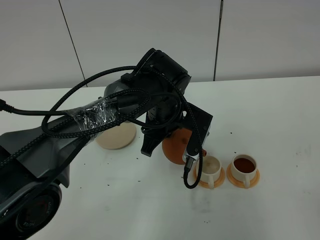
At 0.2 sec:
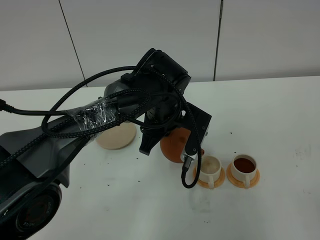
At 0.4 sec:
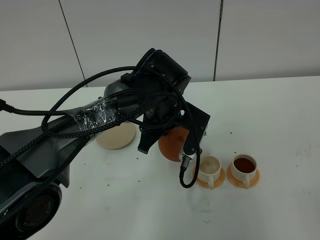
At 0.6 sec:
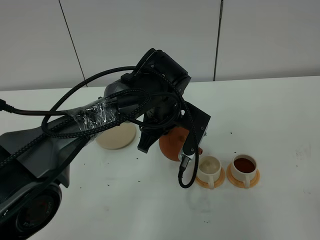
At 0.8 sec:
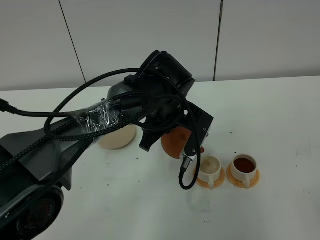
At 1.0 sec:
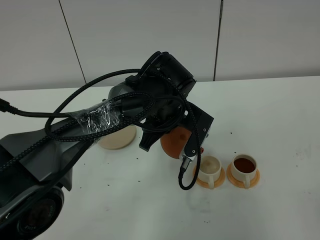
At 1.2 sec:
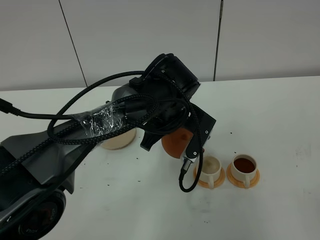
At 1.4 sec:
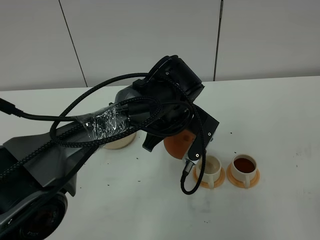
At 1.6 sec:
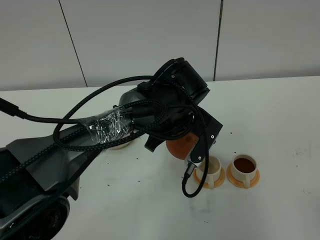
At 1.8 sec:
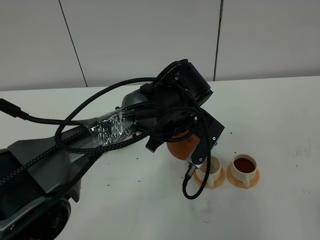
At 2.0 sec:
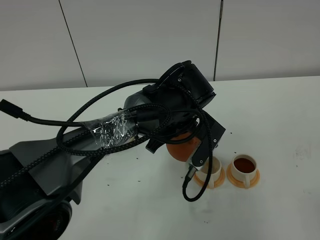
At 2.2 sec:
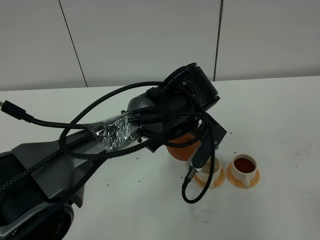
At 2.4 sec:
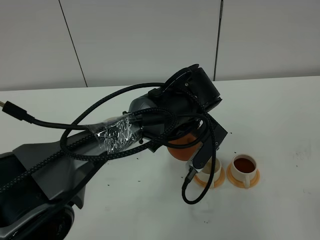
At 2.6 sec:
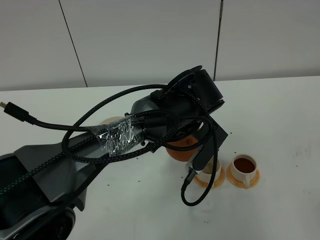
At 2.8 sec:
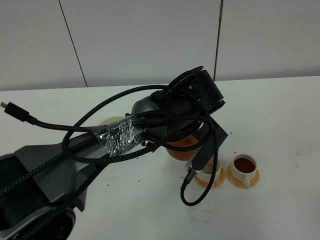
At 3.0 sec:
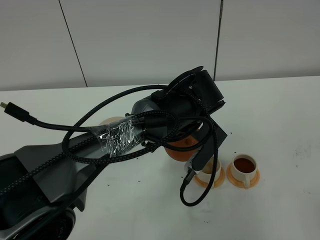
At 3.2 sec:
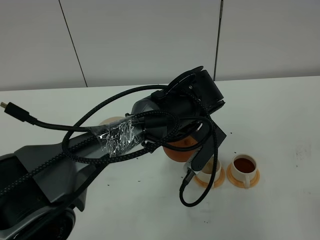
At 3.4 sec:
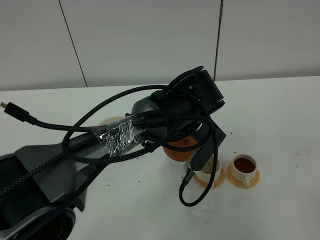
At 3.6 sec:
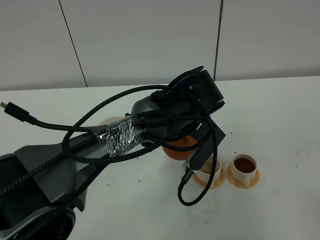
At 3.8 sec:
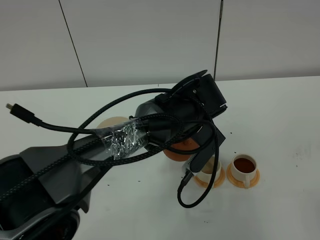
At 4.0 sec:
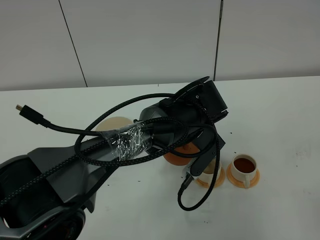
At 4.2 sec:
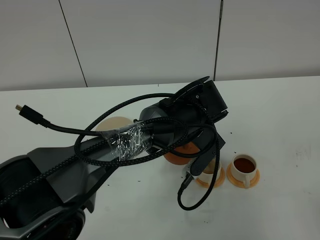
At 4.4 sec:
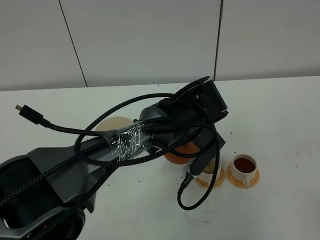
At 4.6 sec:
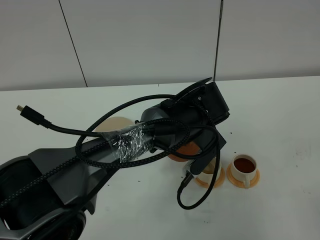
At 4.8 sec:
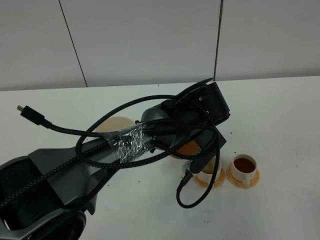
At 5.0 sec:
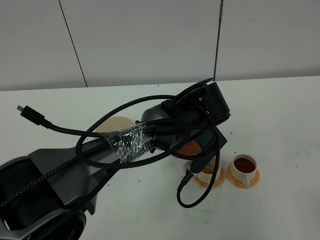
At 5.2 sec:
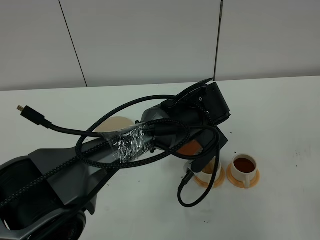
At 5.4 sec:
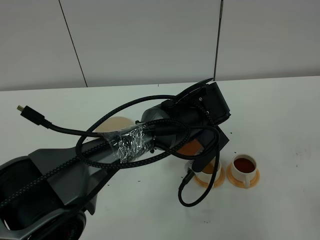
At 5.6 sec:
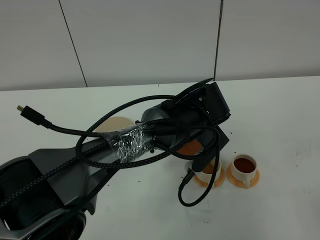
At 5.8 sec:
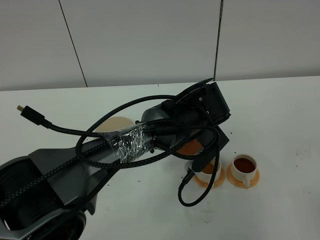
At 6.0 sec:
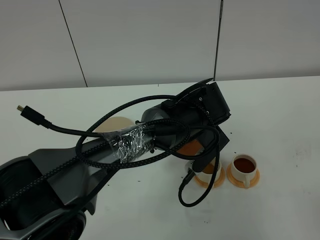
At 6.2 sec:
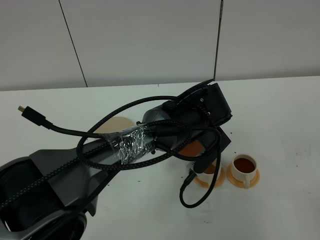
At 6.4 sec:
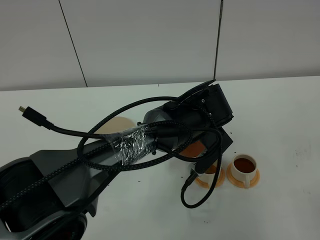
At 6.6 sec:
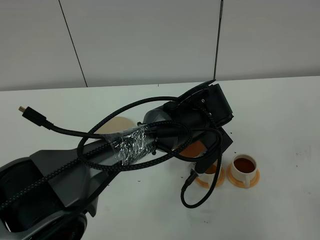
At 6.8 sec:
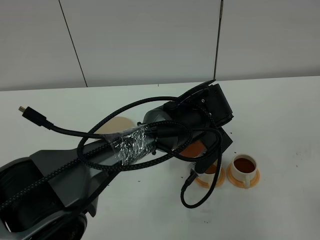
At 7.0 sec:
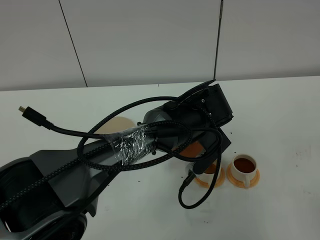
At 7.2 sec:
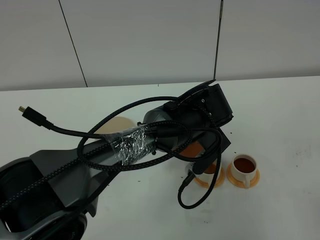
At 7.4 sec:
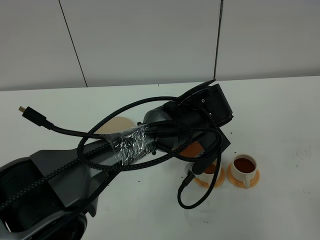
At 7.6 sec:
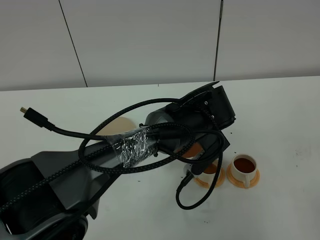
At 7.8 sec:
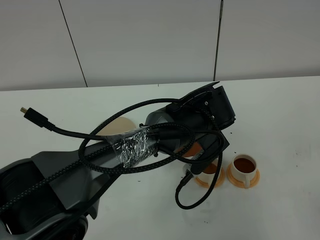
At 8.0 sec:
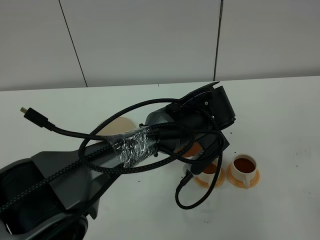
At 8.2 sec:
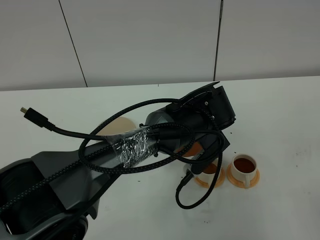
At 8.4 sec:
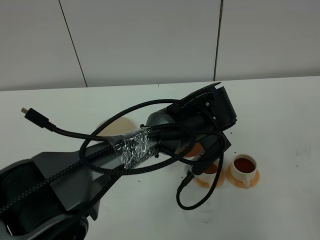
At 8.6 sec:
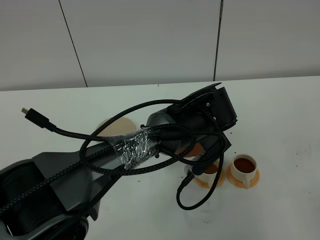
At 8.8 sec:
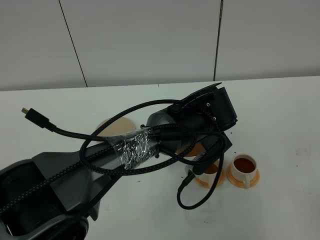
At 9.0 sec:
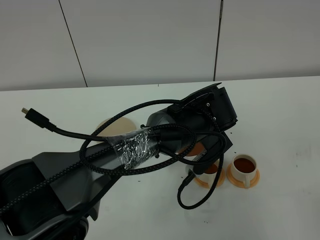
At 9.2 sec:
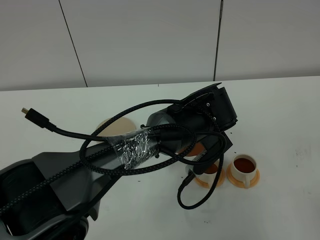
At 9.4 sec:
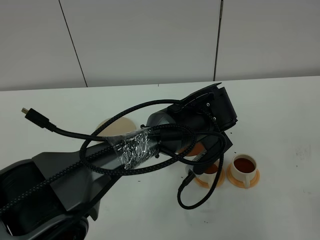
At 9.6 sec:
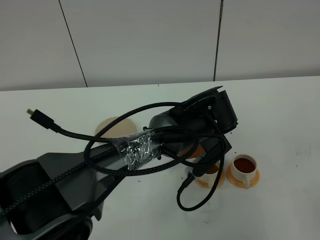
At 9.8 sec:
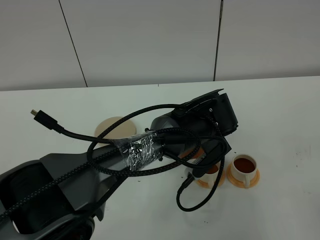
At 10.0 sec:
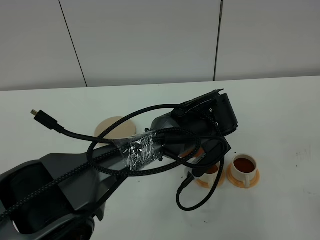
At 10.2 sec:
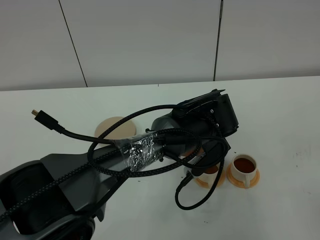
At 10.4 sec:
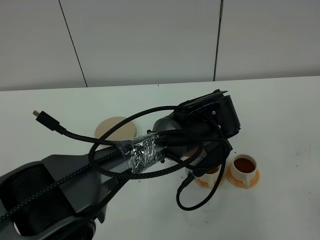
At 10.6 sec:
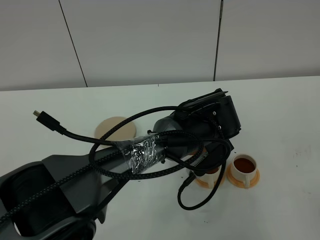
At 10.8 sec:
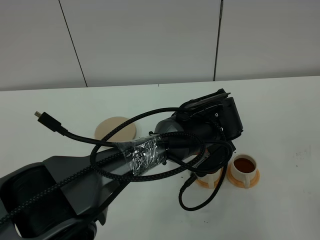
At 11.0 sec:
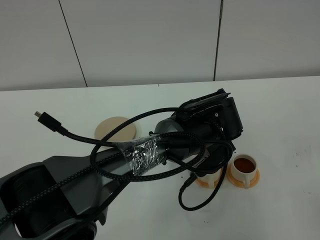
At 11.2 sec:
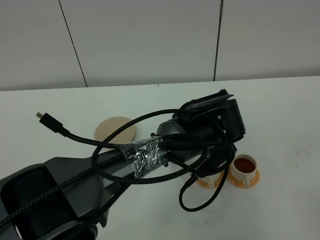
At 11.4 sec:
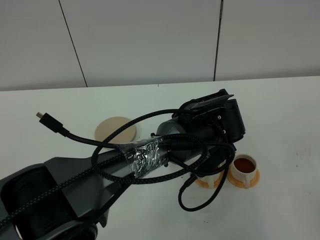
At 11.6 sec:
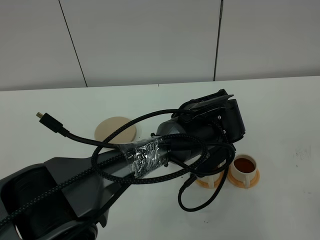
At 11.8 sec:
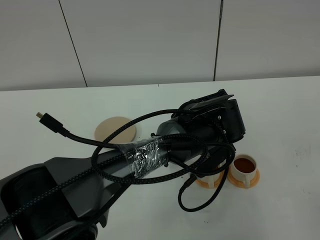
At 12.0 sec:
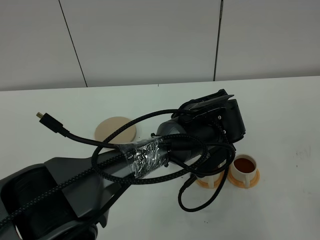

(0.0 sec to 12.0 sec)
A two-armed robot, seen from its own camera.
Task of the whole recording: grasp the brown teapot and pour the tea into the two white teacups one by one, put the brown teapot back in its original place.
0.0 sec - 1.6 sec: The grippers stay close to where they were, moving slightly.
1.6 sec - 6.0 sec: The grippers stay close to where they were, moving slightly.
6.0 sec - 9.0 sec: The two grippers keep their place.
9.0 sec - 10.4 sec: The two grippers keep their place.
10.4 sec - 12.0 sec: Both grippers stay about where they are.

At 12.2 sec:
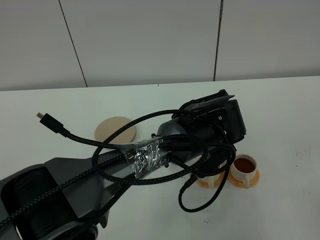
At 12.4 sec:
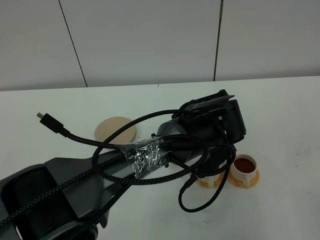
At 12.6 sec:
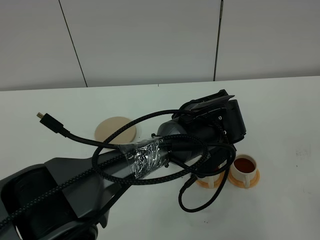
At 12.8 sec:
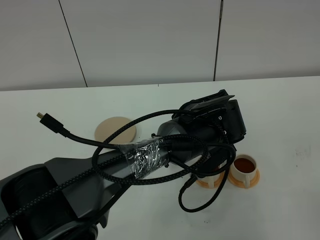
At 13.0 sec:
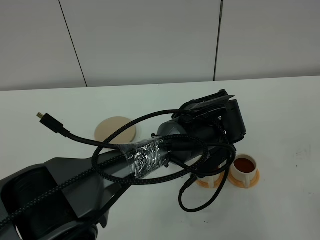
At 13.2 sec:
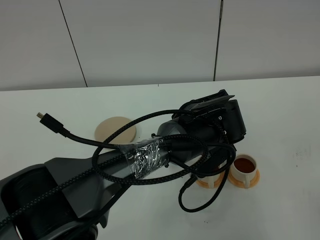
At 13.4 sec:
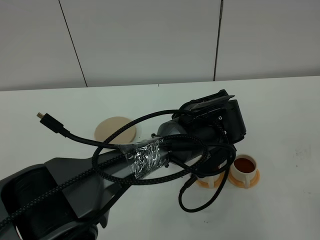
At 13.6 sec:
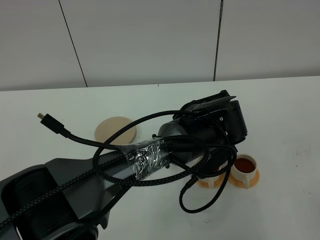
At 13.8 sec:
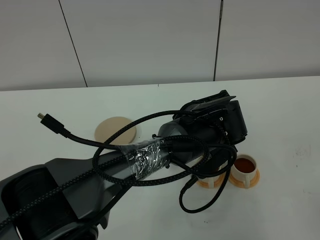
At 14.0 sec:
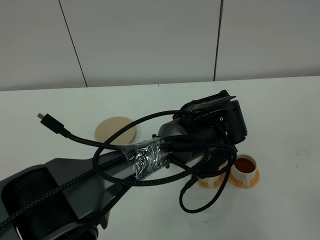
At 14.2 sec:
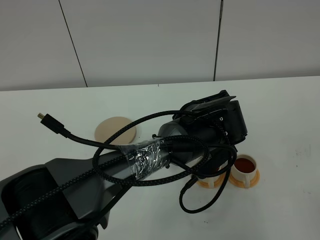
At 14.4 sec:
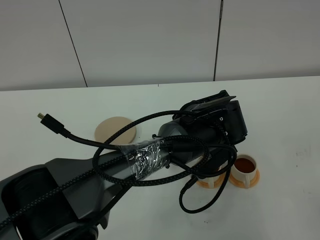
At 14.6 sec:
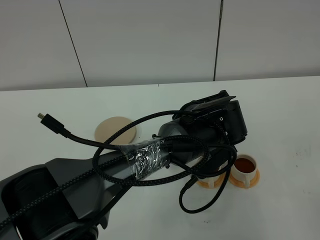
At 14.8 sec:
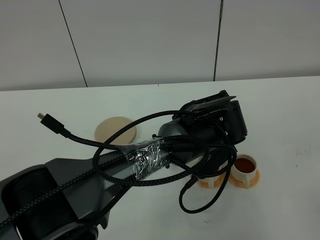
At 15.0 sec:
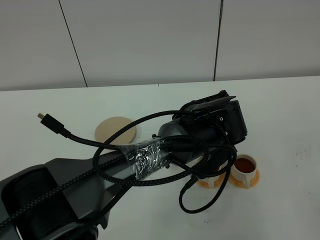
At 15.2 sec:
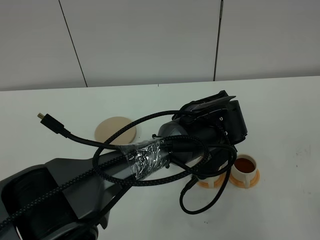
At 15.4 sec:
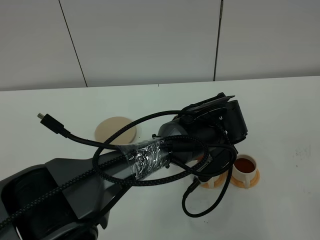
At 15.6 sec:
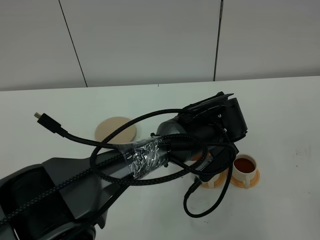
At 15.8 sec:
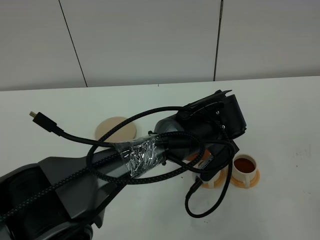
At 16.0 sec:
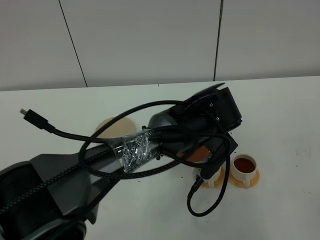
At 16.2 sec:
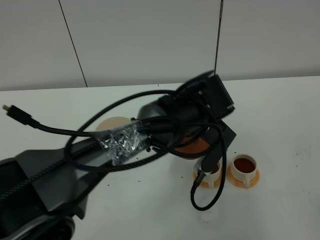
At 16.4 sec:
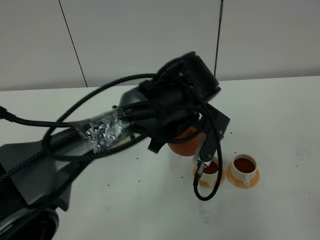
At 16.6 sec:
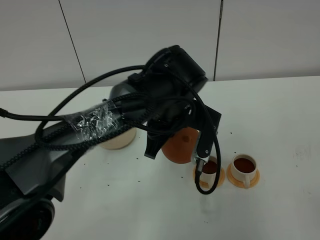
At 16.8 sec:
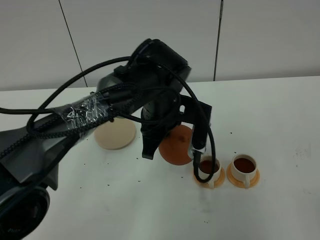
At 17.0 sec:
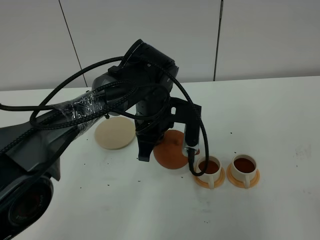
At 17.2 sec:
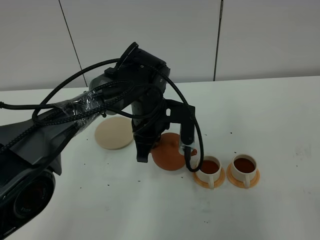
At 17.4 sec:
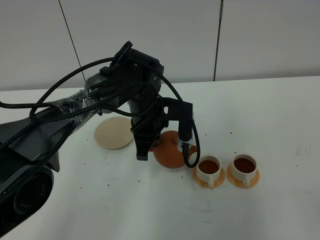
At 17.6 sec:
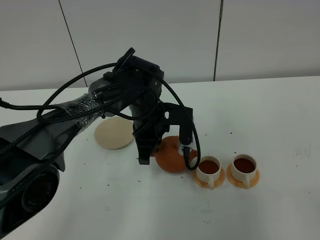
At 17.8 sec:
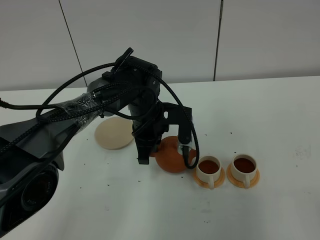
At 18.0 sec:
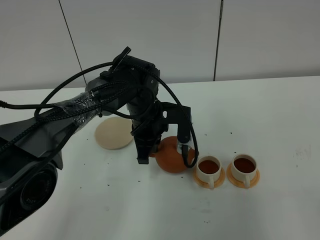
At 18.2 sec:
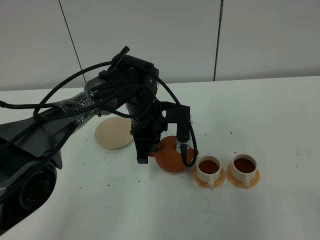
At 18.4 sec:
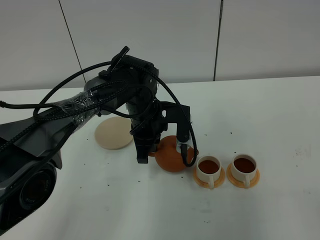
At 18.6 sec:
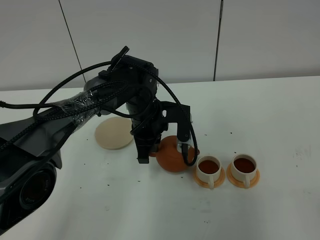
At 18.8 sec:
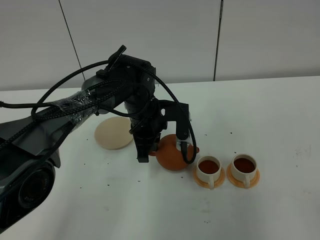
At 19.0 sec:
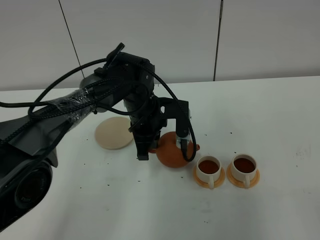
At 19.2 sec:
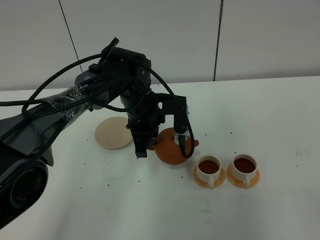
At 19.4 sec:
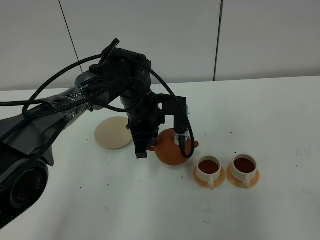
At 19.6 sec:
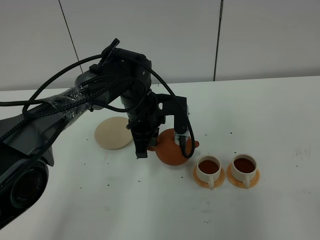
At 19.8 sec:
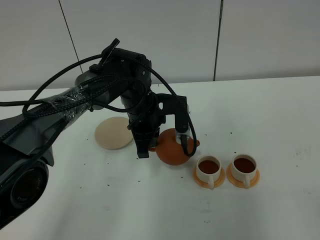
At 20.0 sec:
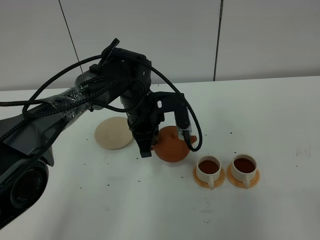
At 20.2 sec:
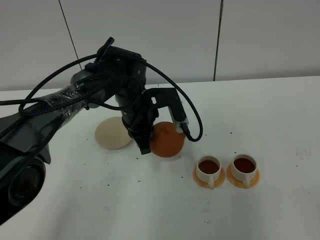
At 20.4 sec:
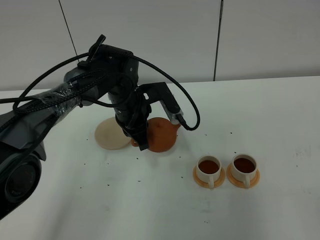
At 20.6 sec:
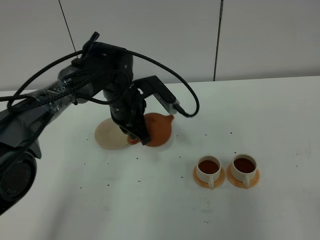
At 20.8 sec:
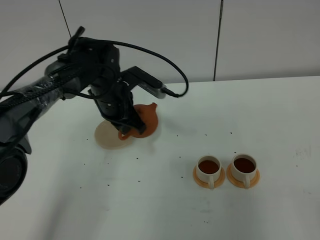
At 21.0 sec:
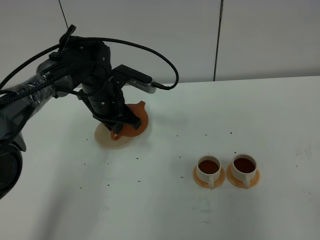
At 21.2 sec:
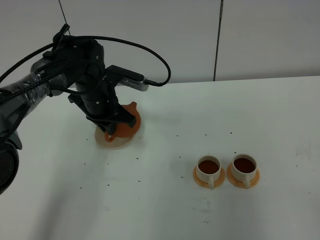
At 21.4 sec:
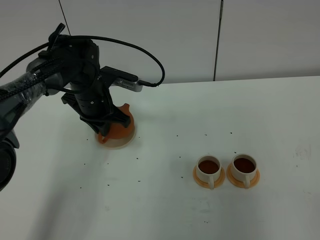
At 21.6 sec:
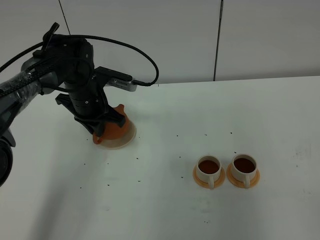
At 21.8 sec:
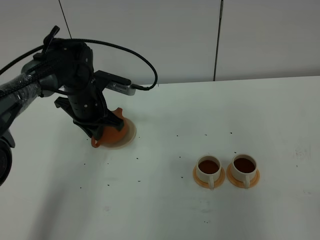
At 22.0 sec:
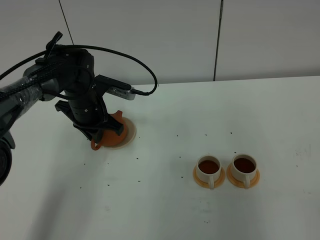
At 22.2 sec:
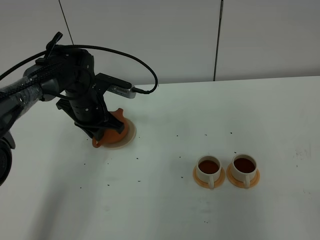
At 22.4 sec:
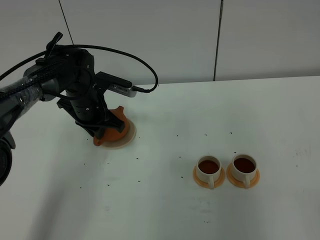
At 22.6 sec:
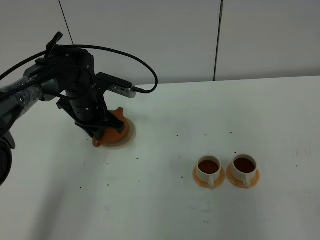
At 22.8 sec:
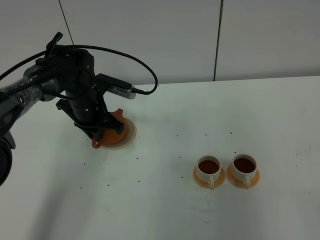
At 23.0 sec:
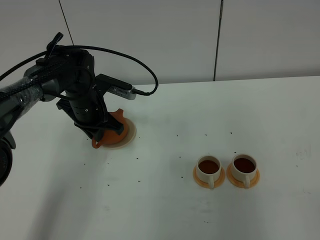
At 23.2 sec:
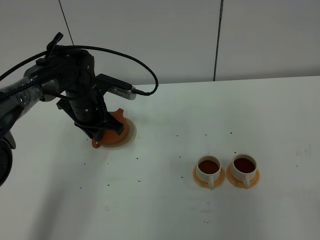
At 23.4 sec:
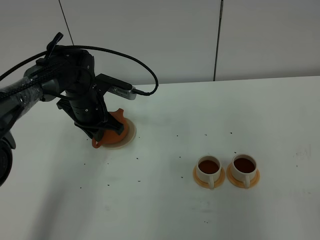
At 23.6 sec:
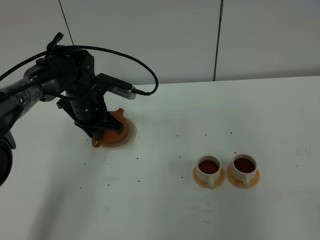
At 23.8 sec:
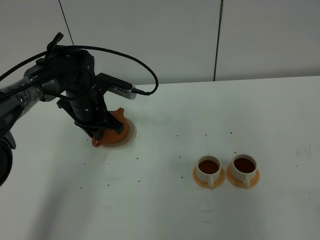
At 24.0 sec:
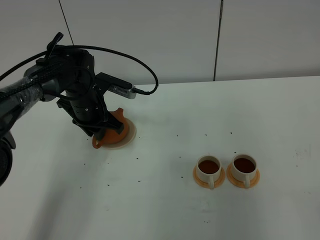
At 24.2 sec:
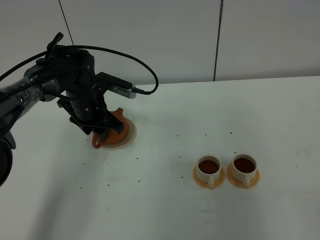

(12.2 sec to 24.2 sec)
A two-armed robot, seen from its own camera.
Task of the whole recording: grasp the brown teapot and pour the tea into the two white teacups one by one, put the brown teapot back in its original place.
Step, 12.2 sec - 16.6 sec: Pour tea into the teacup with the left gripper.
12.2 sec - 15.2 sec: The two grippers keep their place.
15.2 sec - 16.6 sec: The left gripper travels to the left by approximately 5 cm.
16.6 sec - 18.2 sec: The left gripper shifts approximately 10 cm downward, to the left and forward.
18.2 sec - 19.8 sec: There are only small adjustments of the grippers.
19.8 sec - 21.2 sec: The left gripper shifts approximately 10 cm to the left.
21.2 sec - 22.6 sec: The grippers make only small movements.
22.6 sec - 24.2 sec: The left gripper opens up.
